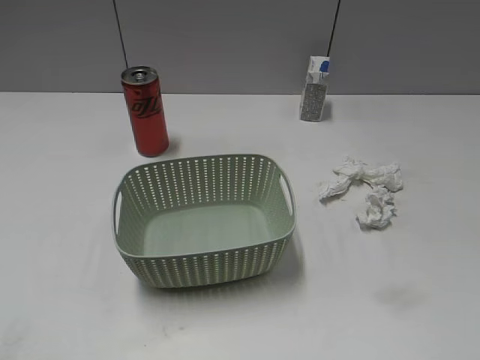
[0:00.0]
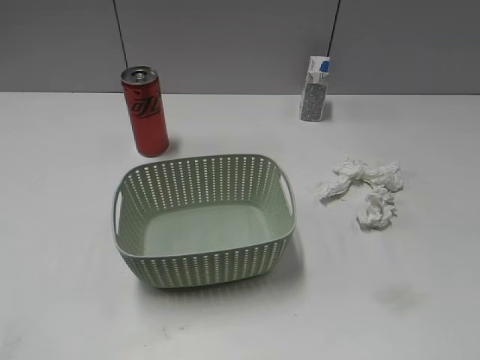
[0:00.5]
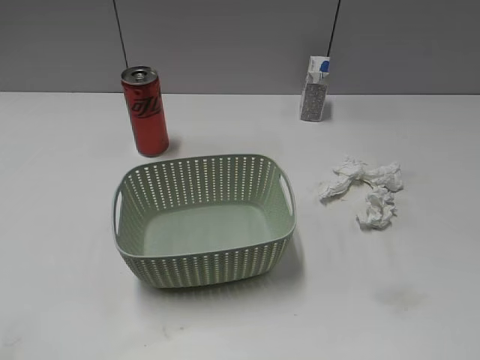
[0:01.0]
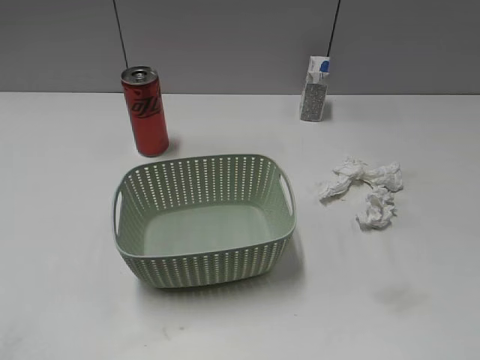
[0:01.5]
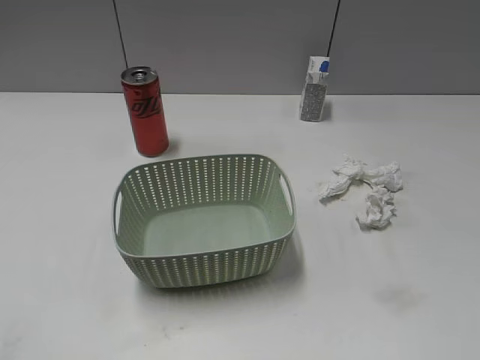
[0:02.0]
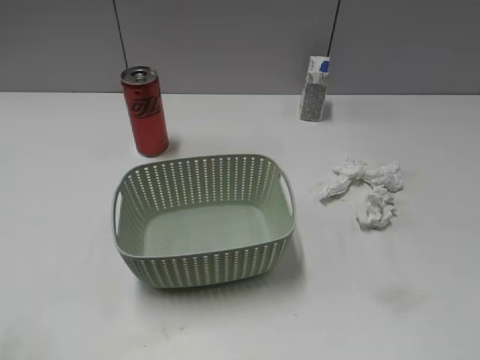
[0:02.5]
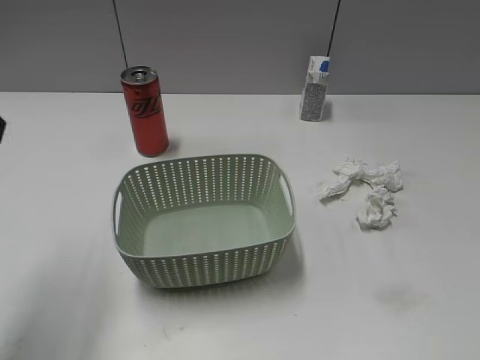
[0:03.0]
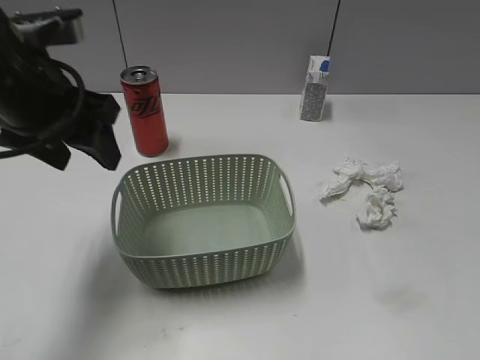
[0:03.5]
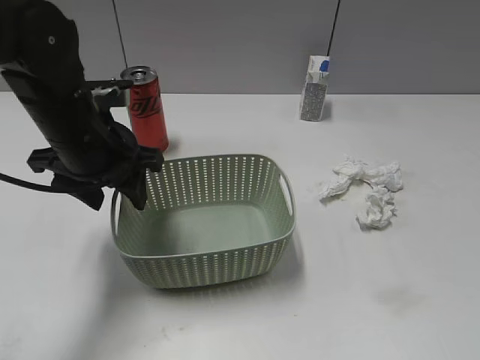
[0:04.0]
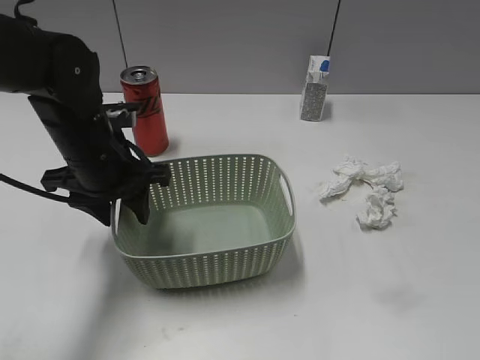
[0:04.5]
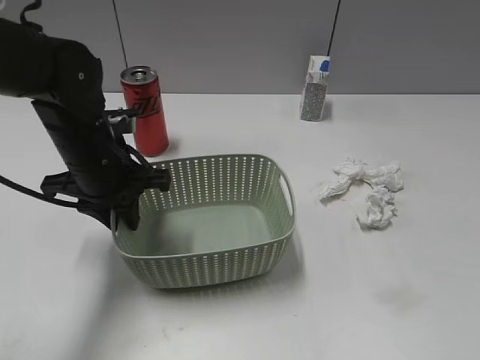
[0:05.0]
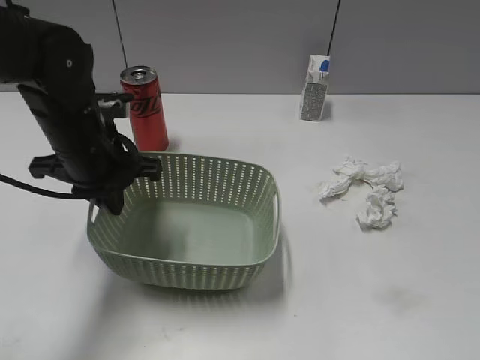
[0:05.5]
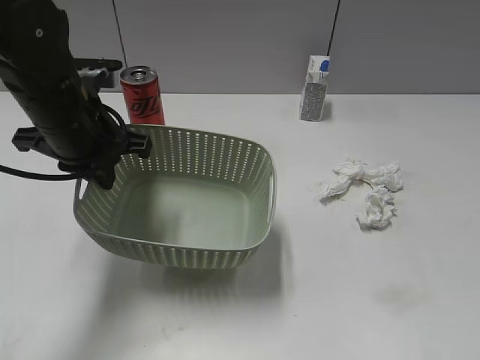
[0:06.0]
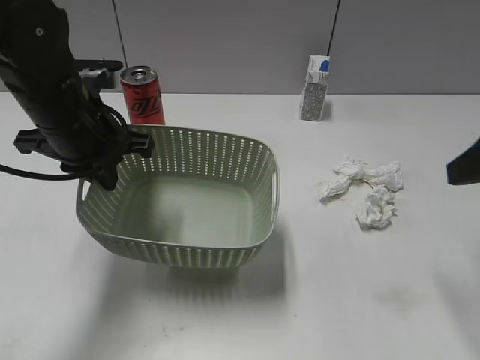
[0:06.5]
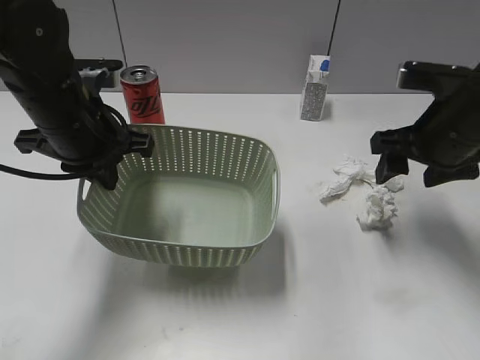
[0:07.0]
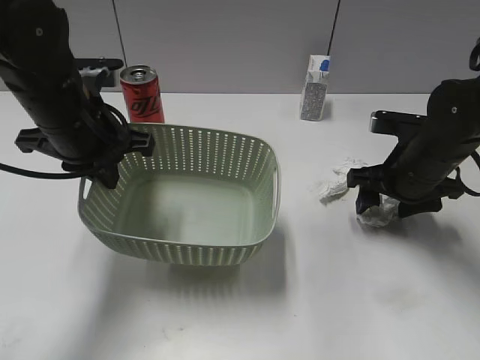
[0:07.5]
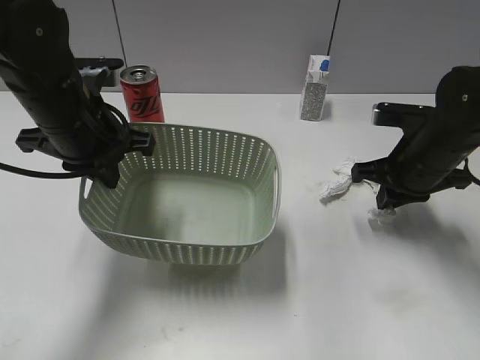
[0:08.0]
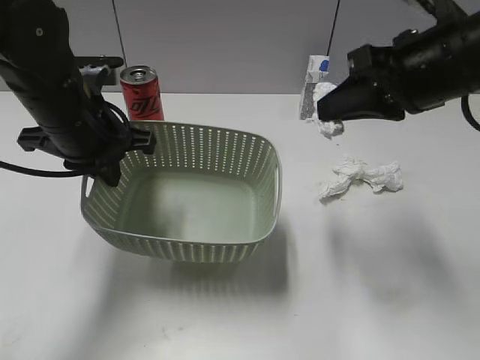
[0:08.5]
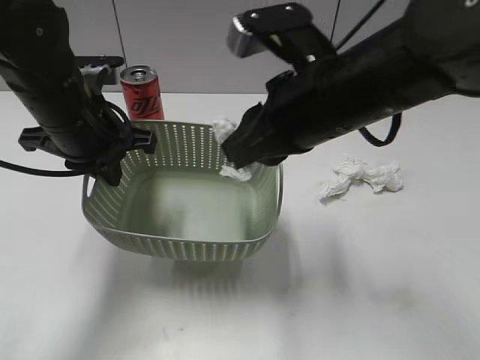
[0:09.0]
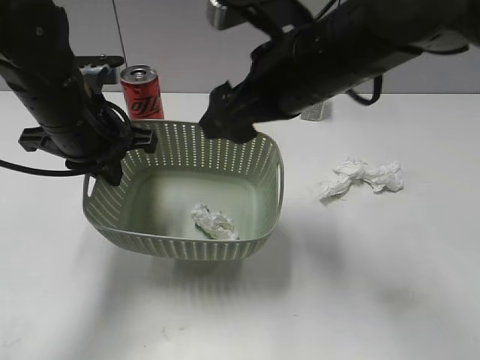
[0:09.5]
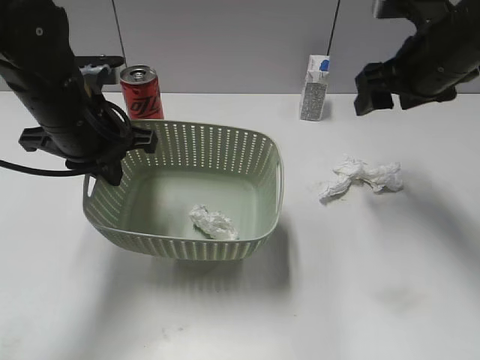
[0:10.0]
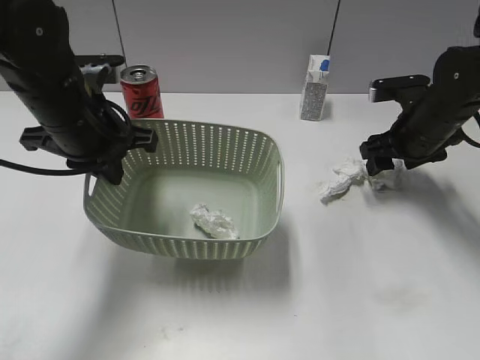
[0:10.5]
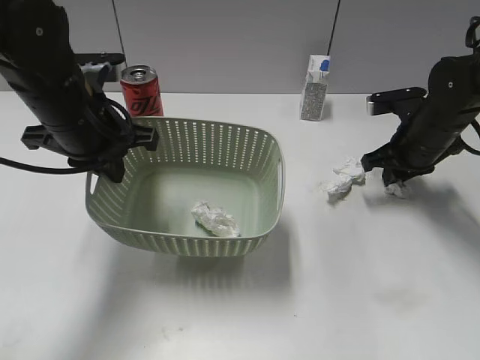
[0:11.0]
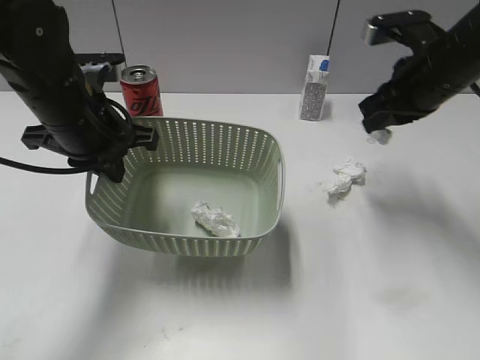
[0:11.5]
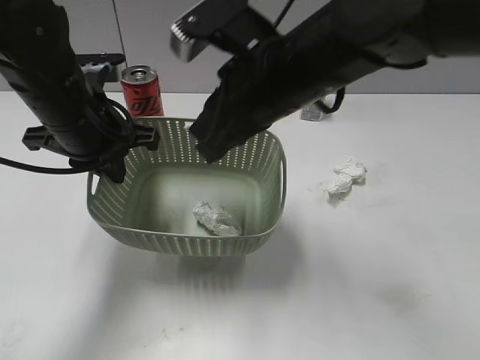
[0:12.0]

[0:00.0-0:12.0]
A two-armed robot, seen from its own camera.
Step, 2.0 to 5.0 s: Grasp the basket with left gripper.
Step, 5.5 to 6.0 s: Lift the basket with left gripper.
Step, 6.5 to 7.5 s: Grasp the waste paper with right gripper.
Step, 8.0 to 9.5 s: Place the waste paper in the basket with right gripper.
Step, 10.0 to 11.0 s: Grasp the waste paper with right gripper.
2.0 to 4.0 s: The left gripper travels forward and to the right by approximately 35 cm.
4.0 to 6.0 s: The left gripper closes its fingers.
6.0 to 8.0 s: The right gripper heads forward and downward, covering some 35 cm, and closes its fingers.
8.0 to 10.0 s: The right gripper is displaced upward by some 15 cm, reaches some 15 cm to the left, then returns, and opens.
10.0 to 12.0 s: The right gripper goes approximately 15 cm to the left and backward, and closes its fingers.

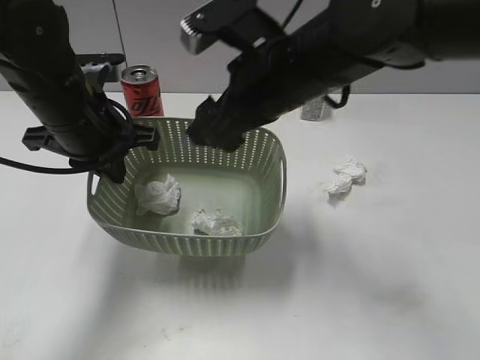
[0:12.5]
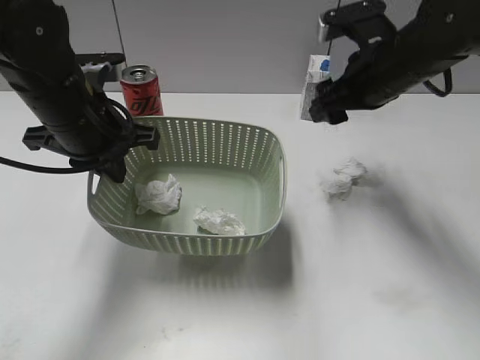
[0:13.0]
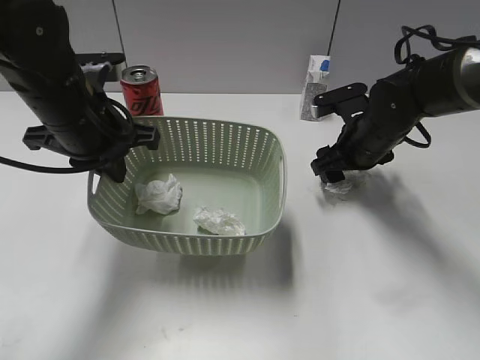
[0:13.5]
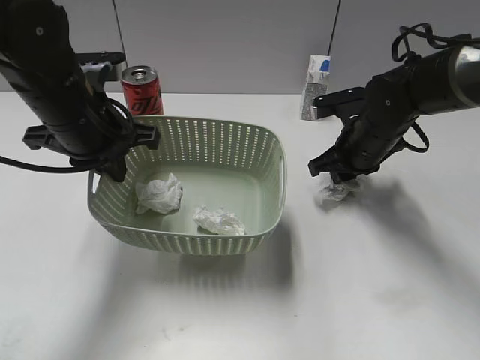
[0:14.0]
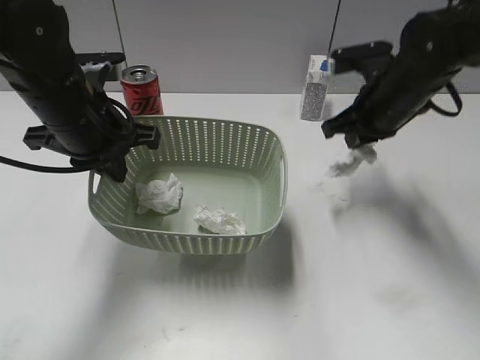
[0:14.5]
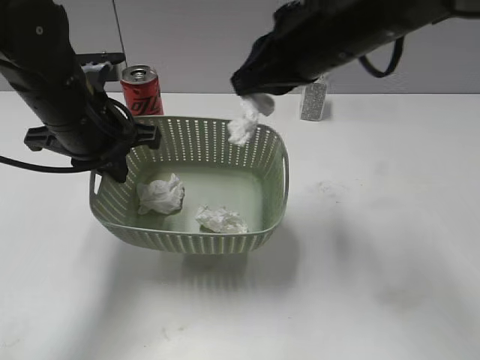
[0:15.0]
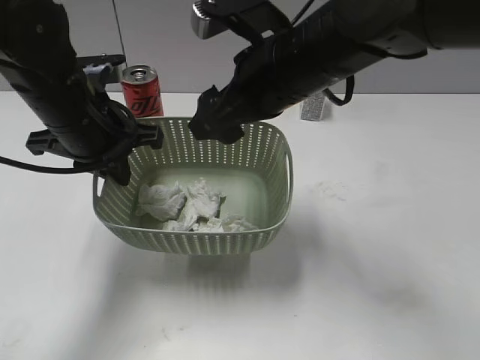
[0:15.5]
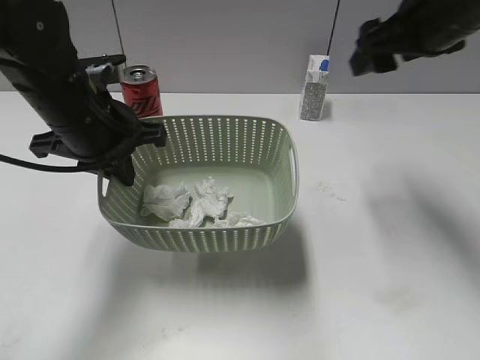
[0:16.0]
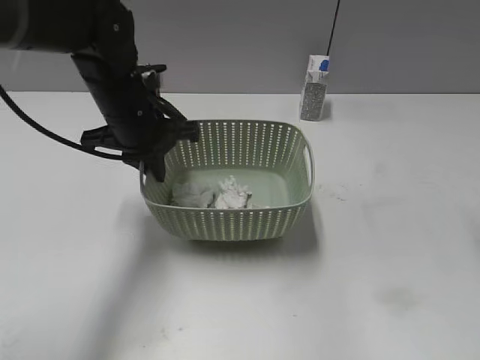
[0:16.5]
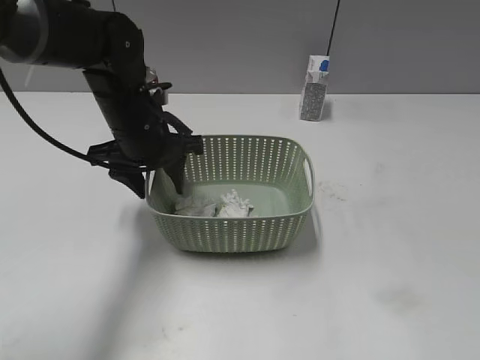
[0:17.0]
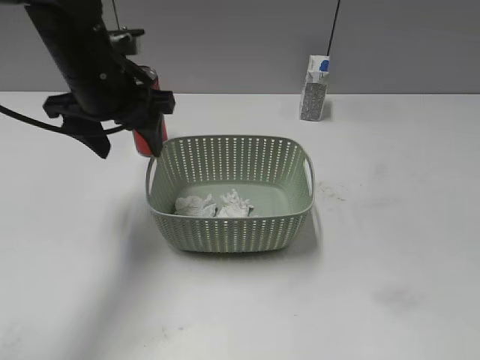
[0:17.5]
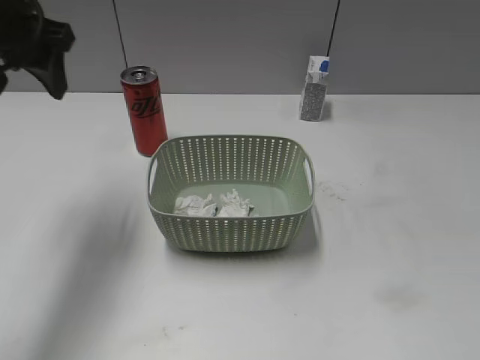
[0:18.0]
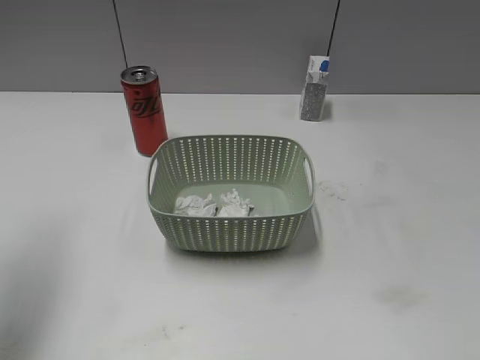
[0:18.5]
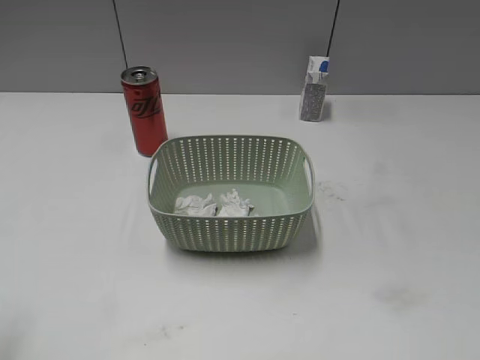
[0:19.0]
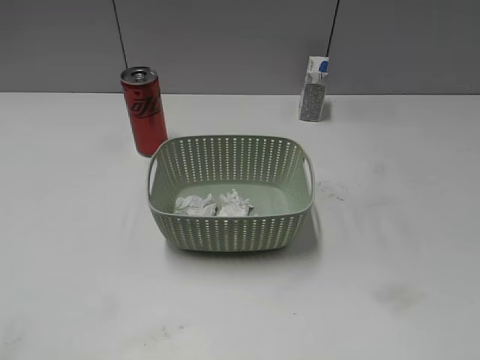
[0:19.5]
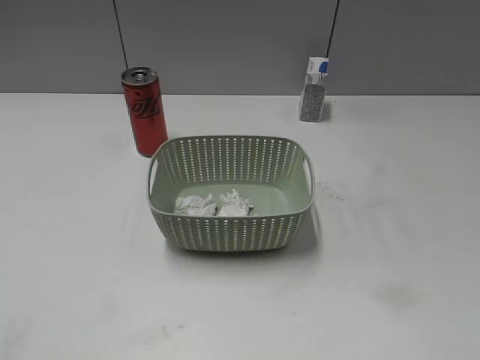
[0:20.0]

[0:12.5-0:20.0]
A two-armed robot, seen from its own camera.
Step, 13.0 to 14.0 s: Grasp the waste paper with right gripper.
Step, 14.5 to 15.5 s: Place the waste paper in the basket with right gripper.
Step, 16.0 to 17.5 s: Place the basket on the table with left gripper.
12.5 to 14.5 s: The right gripper moves to the right, downward and forward, approximately 20 cm, and closes up.
14.5 to 16.5 s: The right gripper moves upward, to the right and backward, about 25 cm, and opens, while the left gripper ends up some 5 cm from where it was.
16.5 to 18.0 s: The right gripper moves backward and downward, about 30 cm. The left gripper travels upward and to the left by some 15 cm, and opens its fingers.
18.0 to 20.0 s: The left gripper goes about 35 cm backward.

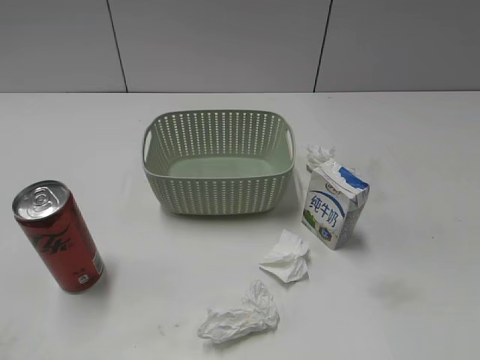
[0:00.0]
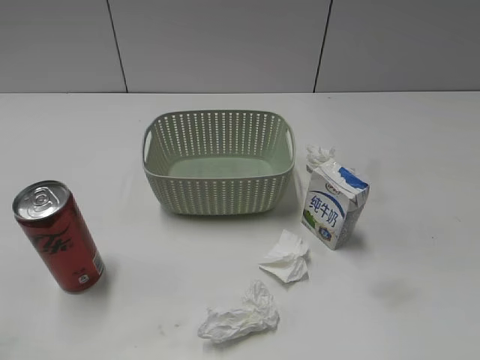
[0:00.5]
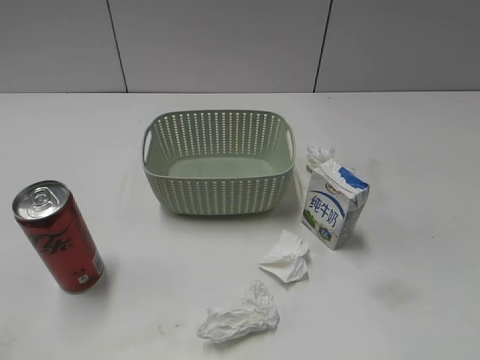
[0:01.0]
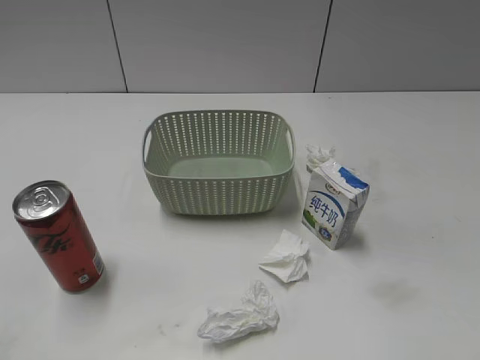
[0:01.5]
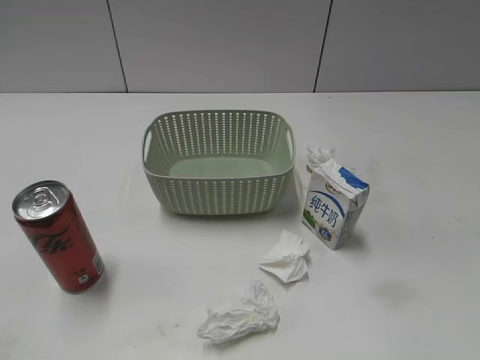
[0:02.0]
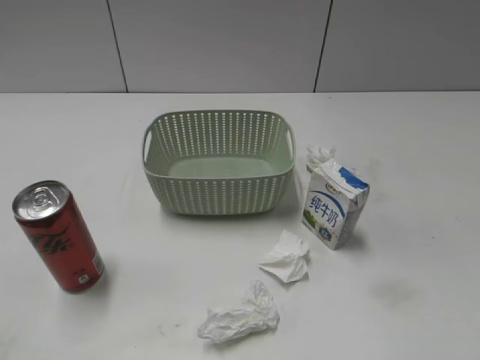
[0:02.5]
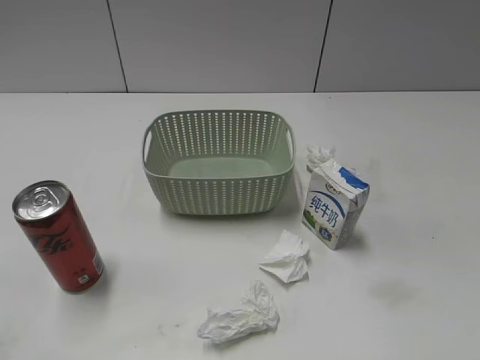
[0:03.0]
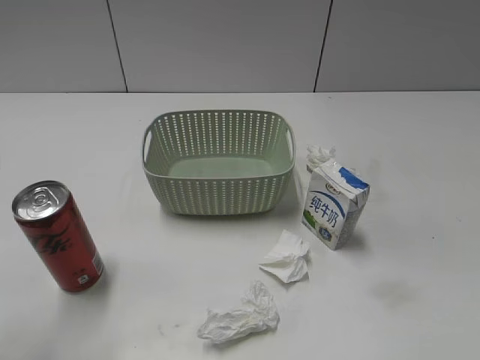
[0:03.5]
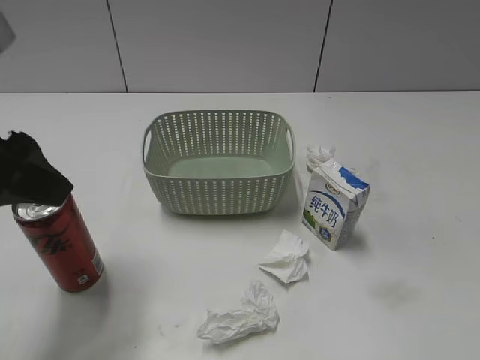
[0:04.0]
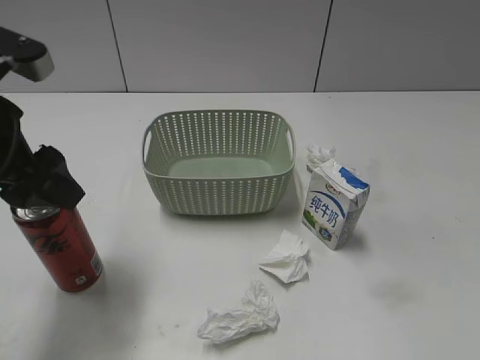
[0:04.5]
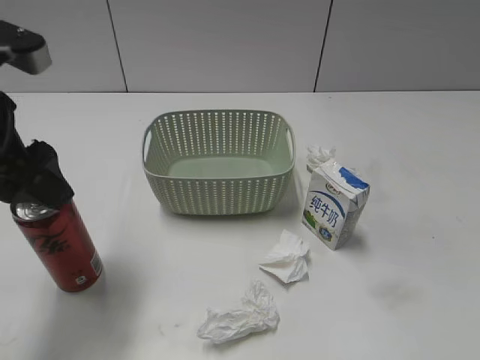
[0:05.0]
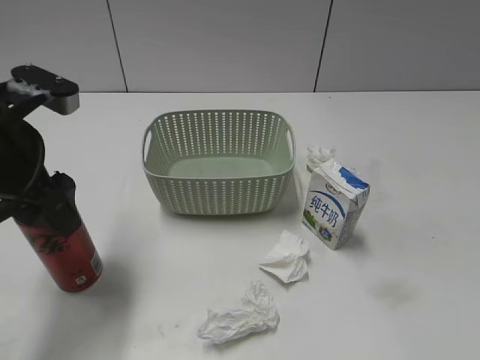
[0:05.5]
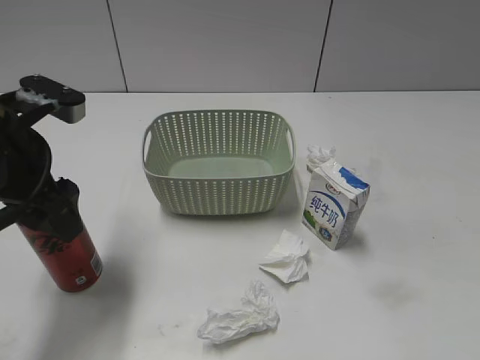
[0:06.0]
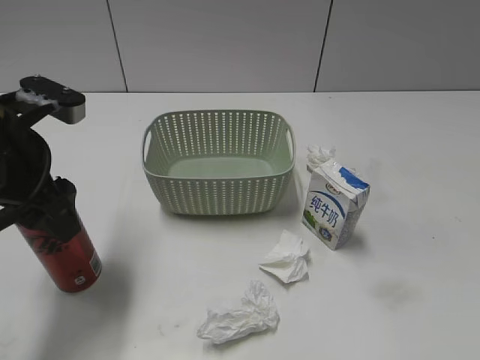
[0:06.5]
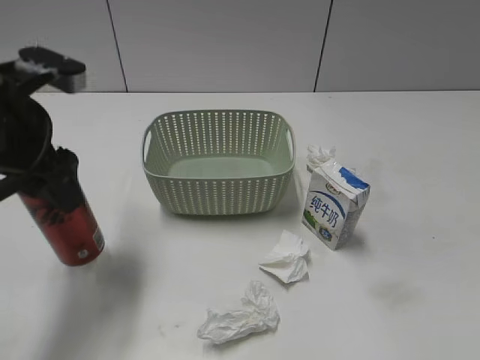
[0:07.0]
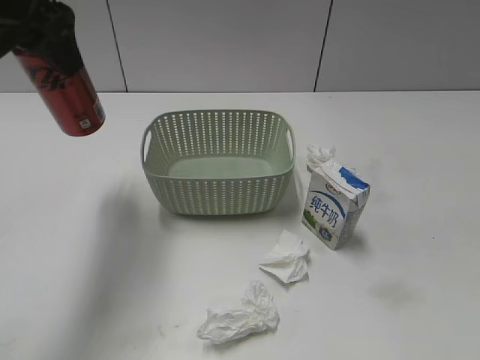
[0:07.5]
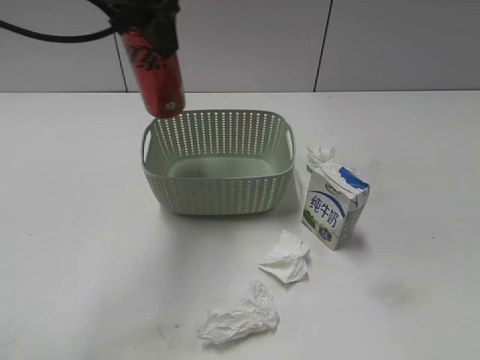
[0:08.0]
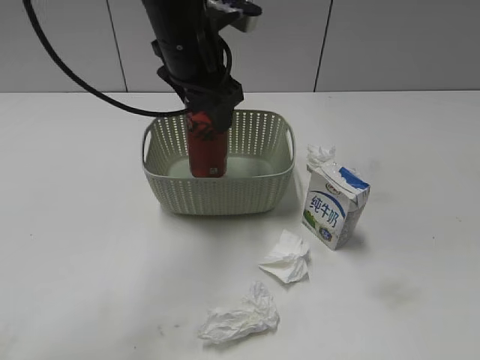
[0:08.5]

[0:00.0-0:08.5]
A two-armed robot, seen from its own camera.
Step, 4.0 to 6.5 s: Grasp the cola can with left gripper.
2.0 to 4.0 s: The left gripper goes about 20 cm forward and to the right, and opens.
4.0 to 6.5 s: The left gripper travels downward and forward by about 10 cm, and closes.
6.5 to 8.5 s: The left gripper travels to the right and forward by approximately 20 cm.
